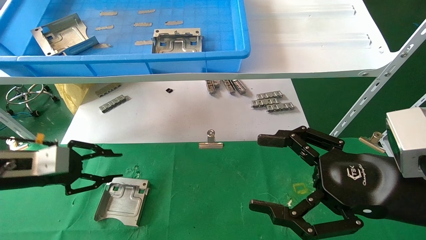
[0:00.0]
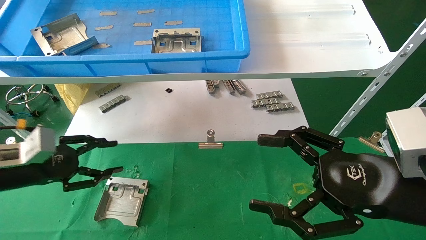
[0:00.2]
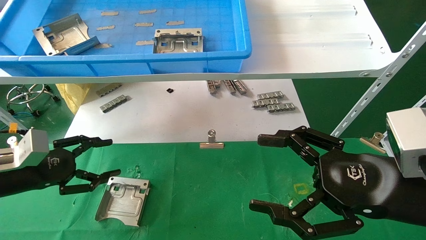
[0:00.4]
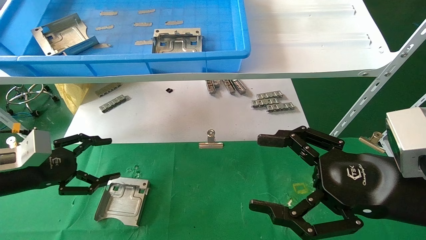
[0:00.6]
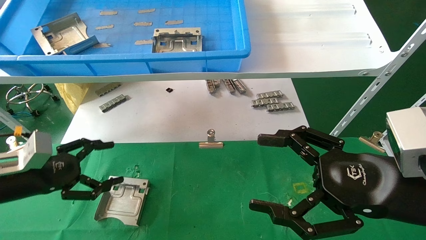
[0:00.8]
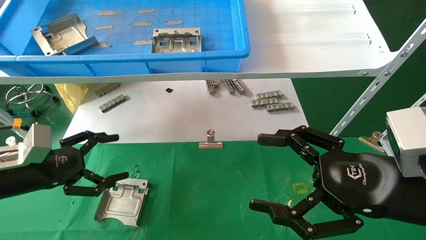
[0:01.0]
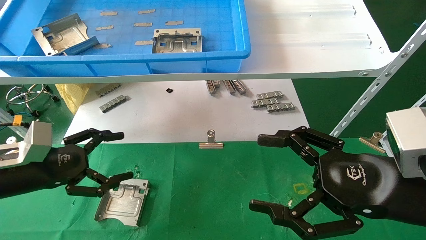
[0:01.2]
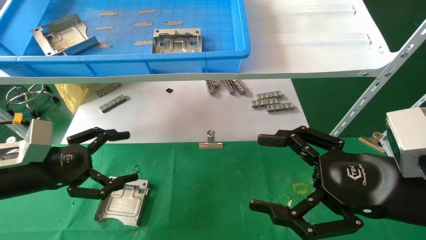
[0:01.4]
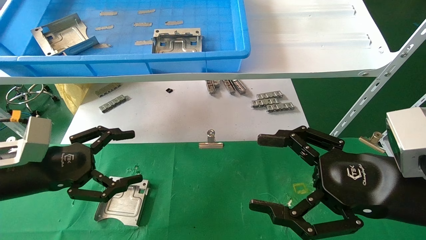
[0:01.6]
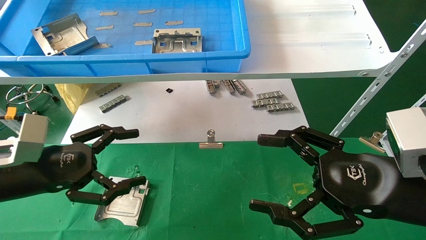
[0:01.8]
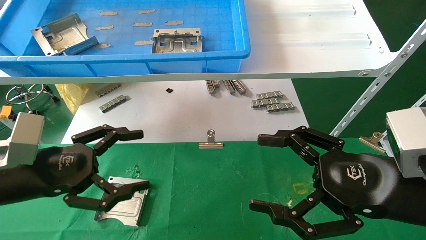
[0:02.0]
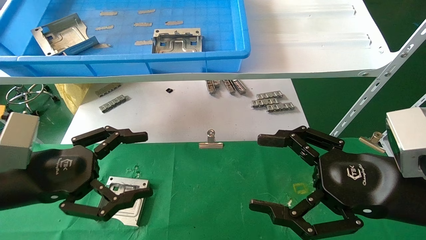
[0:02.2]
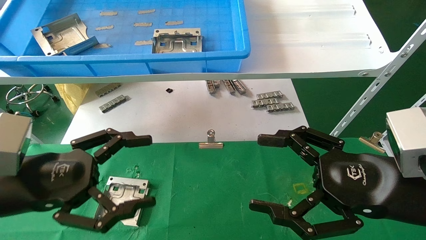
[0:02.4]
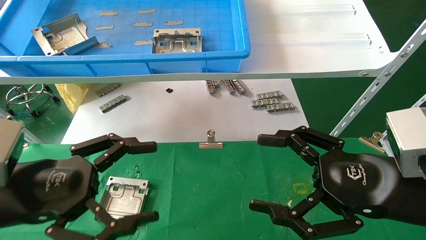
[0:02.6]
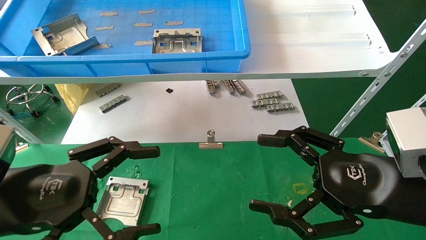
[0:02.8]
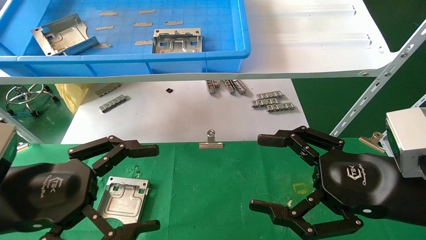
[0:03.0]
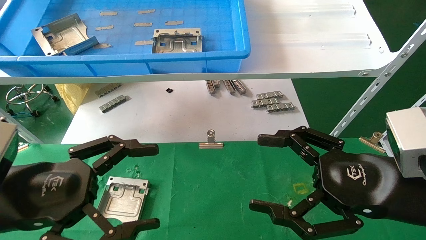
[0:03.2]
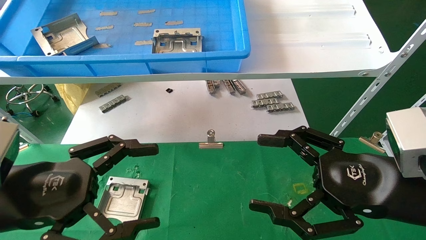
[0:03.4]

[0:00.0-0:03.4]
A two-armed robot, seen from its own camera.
Task of the whole recording: use the mechanical arm to pick up the parts and place them on the table.
0:00.0 to 0:01.6: The left gripper is displaced to the right by about 5 cm, and opens its fingers.
0:01.6 to 0:03.4: The left gripper is displaced backward and to the right by about 10 cm.

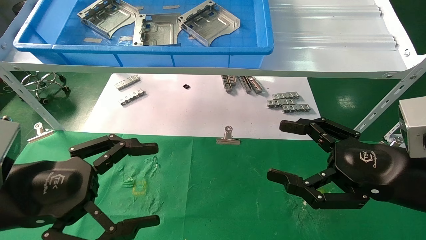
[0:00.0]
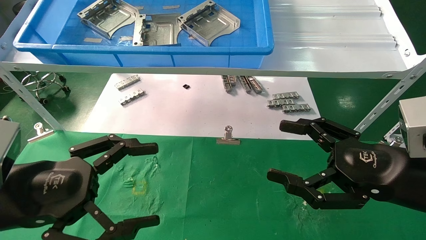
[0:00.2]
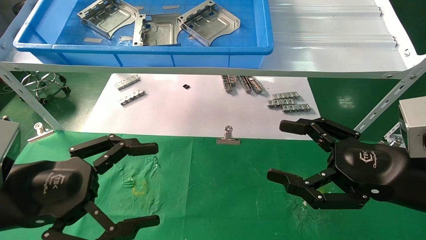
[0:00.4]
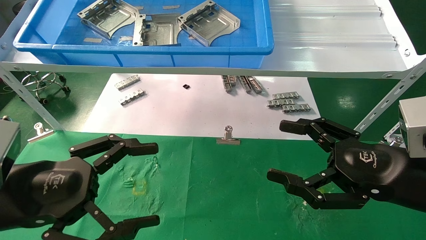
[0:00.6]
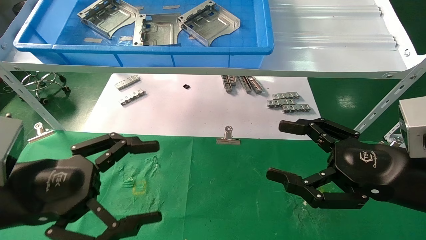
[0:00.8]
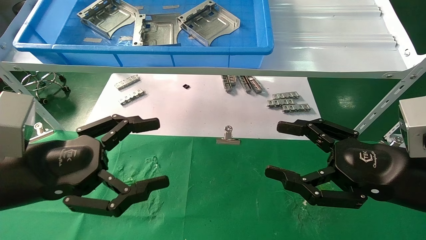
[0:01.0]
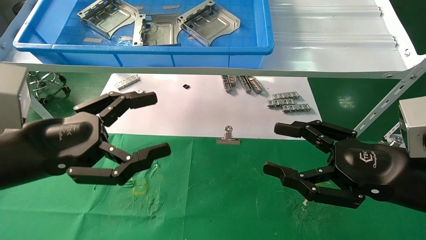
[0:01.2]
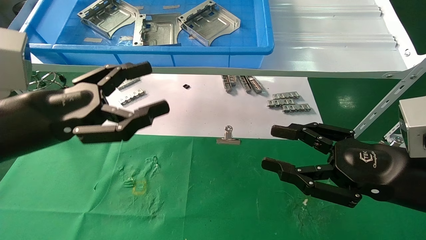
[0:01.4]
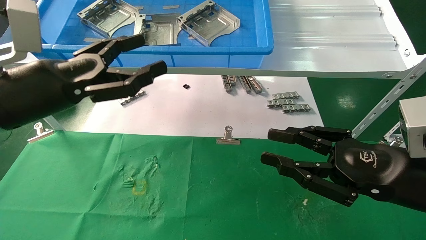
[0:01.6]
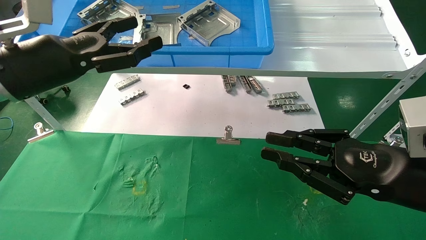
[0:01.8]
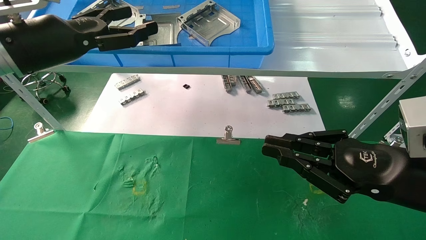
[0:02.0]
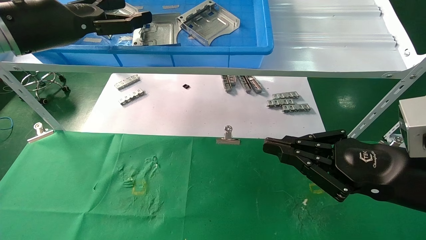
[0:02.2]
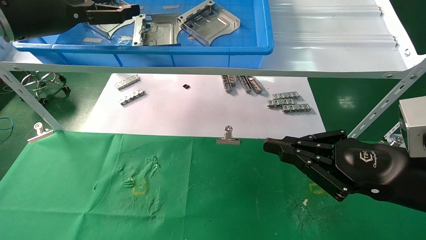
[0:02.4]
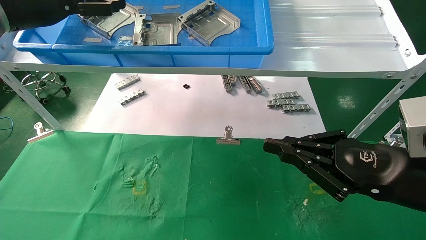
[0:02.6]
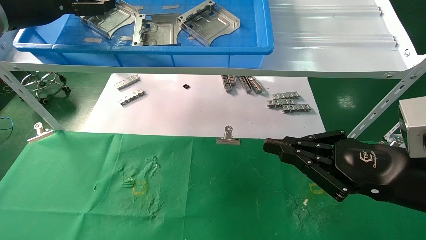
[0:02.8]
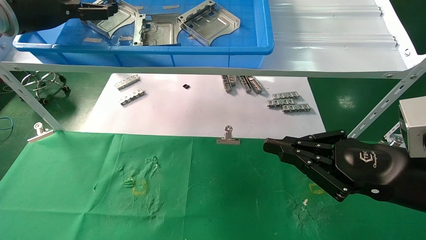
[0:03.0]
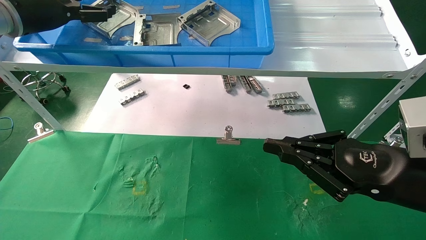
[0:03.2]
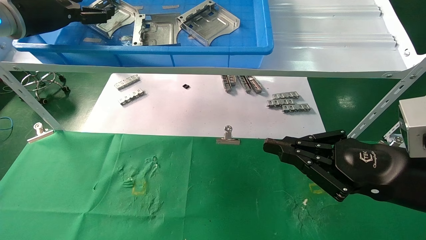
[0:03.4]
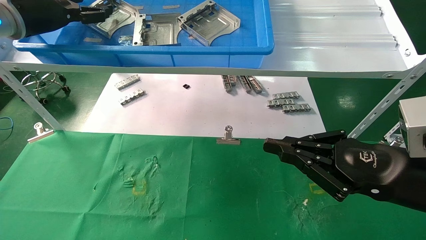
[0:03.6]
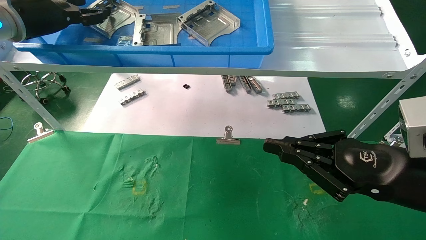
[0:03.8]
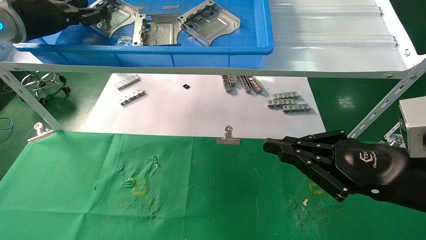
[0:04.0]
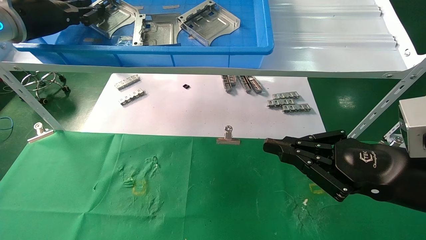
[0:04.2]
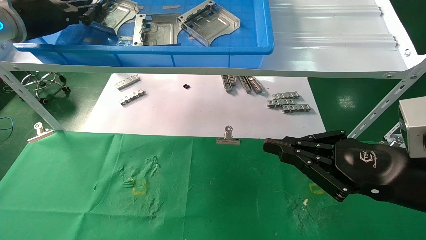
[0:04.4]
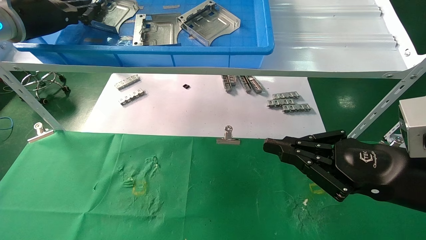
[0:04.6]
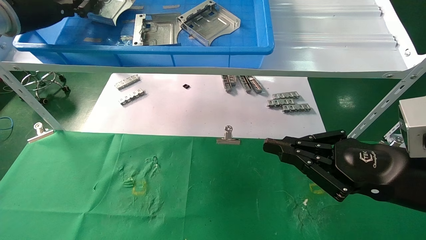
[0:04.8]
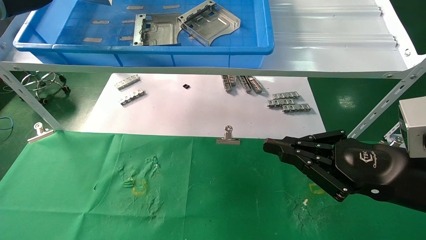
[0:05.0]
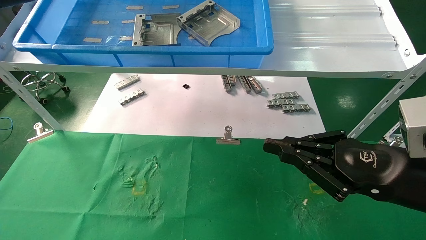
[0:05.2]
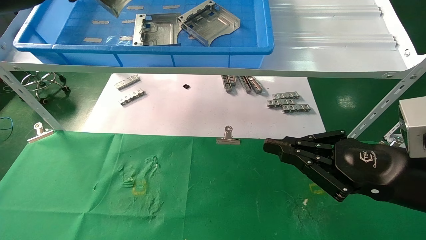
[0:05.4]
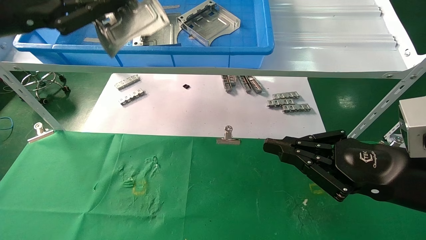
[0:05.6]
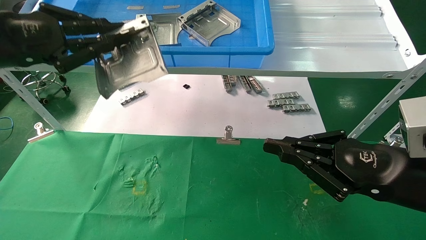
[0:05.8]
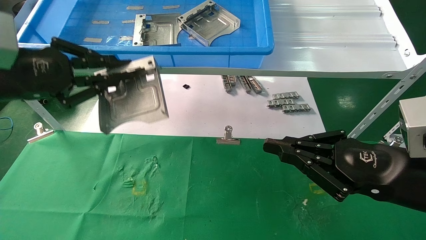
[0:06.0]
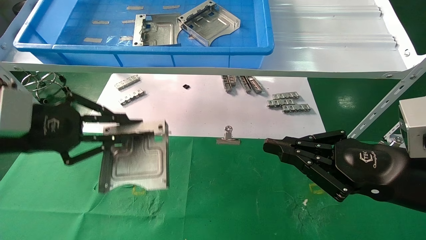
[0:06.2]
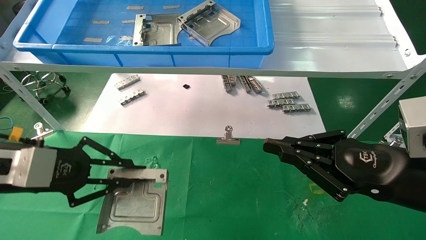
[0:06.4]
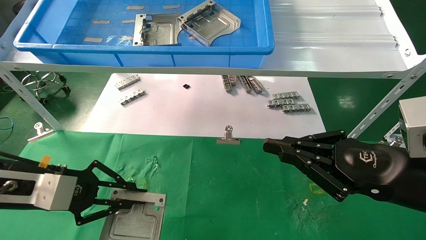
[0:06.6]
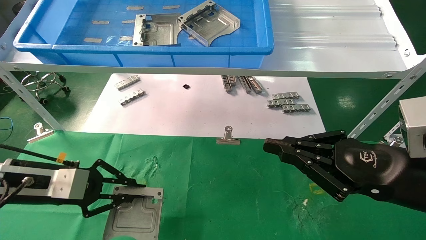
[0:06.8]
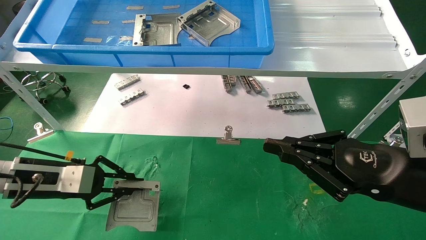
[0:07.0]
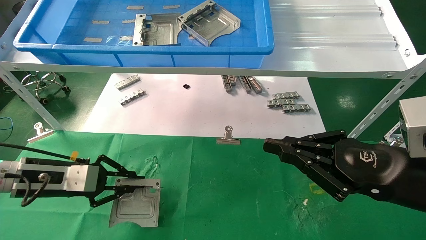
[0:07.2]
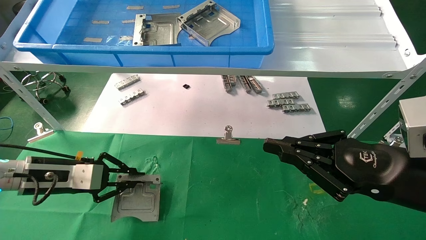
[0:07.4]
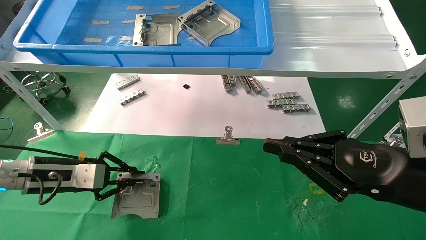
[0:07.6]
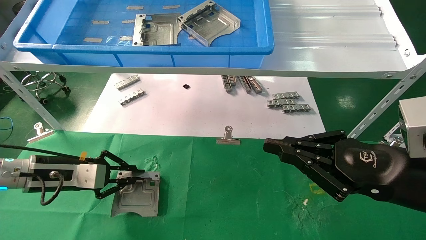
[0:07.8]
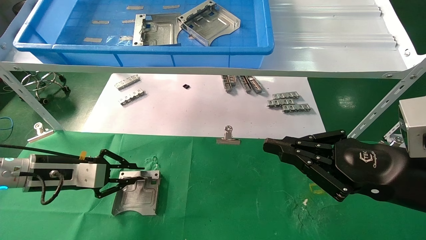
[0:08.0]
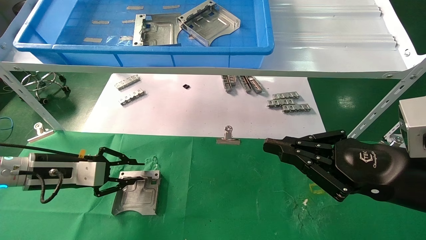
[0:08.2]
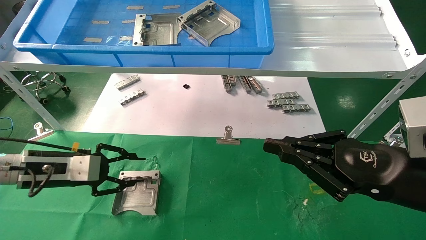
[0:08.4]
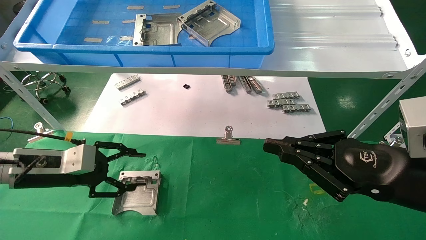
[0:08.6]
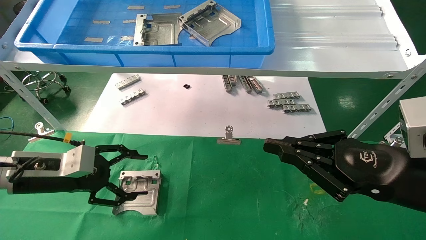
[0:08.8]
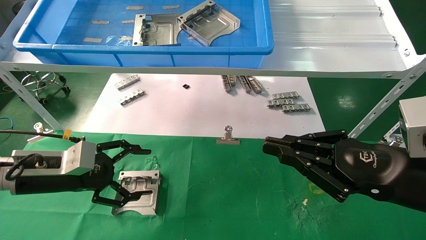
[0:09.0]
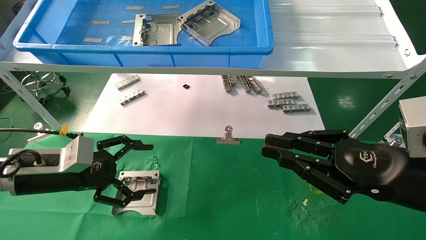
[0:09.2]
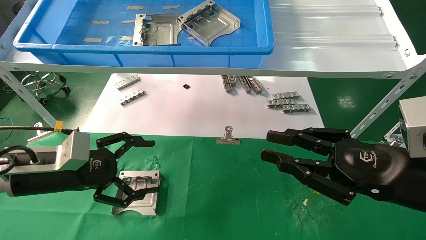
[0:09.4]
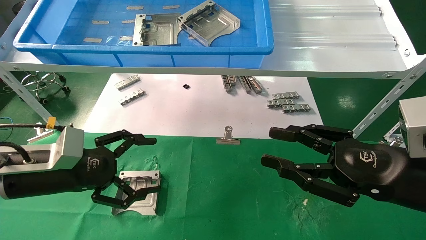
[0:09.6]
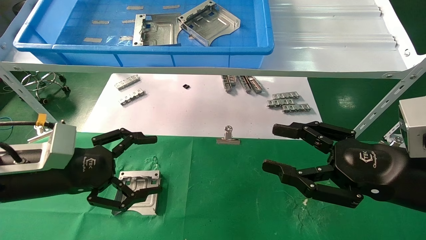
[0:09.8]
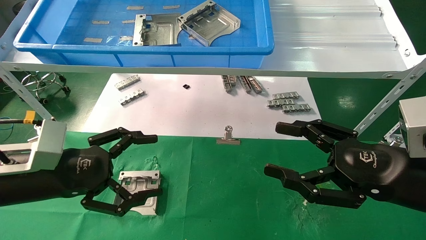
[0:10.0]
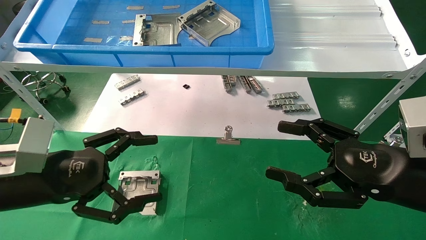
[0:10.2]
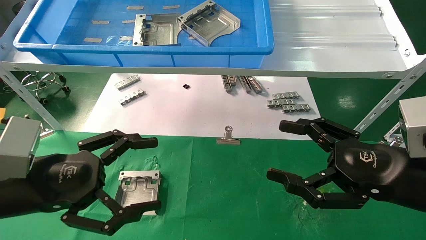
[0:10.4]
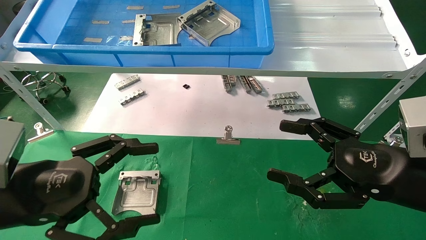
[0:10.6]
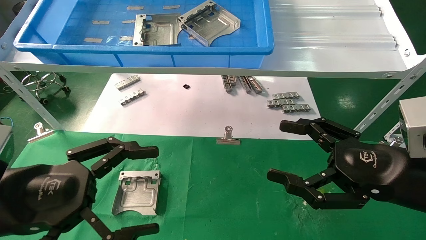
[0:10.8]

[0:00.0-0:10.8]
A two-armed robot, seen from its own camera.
Task of the whole recording: use the mechanical arm to pick up the parts and place them on the table.
Step, 0:01.2 to 0:04.4: Pick up the hard drive bracket from the feeding area.
Step, 0:04.6 to 0:08.2: Place the hard drive bracket into the box.
0:00.0 to 0:01.6: The right gripper closes its fingers. The left gripper moves upward and forward, some 15 cm.
0:01.6 to 0:03.0: The right gripper closes up, while the left gripper is displaced forward, upward and to the left by roughly 20 cm.
0:03.0 to 0:04.6: The left gripper closes.
0:04.6 to 0:06.2: The left gripper goes some 20 cm backward and downward.
0:06.2 to 0:07.8: The left gripper travels downward and forward by approximately 15 cm.
0:07.8 to 0:09.2: The left gripper changes place by roughly 5 cm, and opens.
0:09.2 to 0:10.8: The left gripper shifts approximately 15 cm backward. Meanwhile the right gripper opens its fingers.
